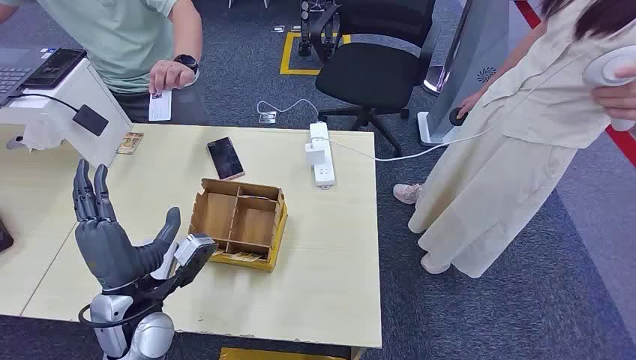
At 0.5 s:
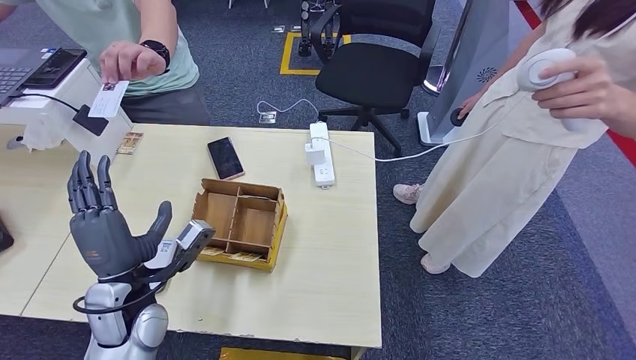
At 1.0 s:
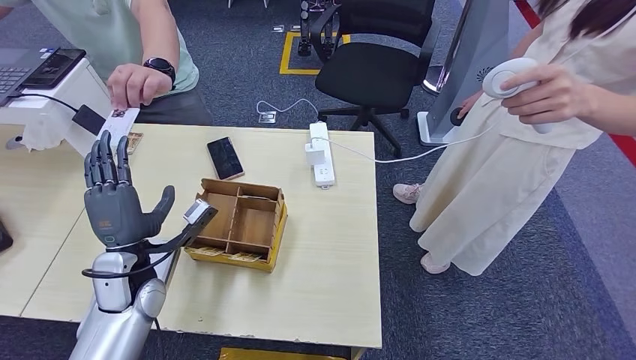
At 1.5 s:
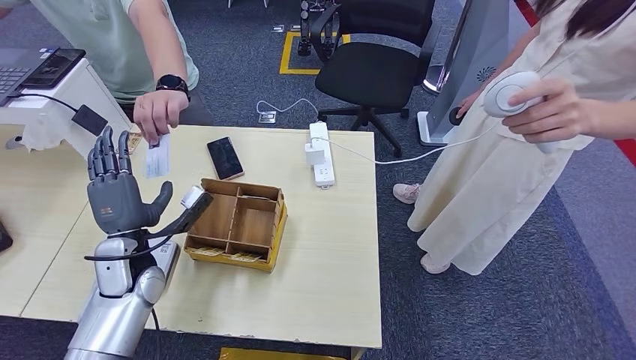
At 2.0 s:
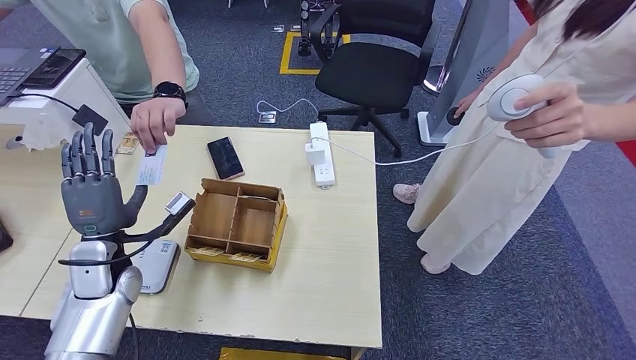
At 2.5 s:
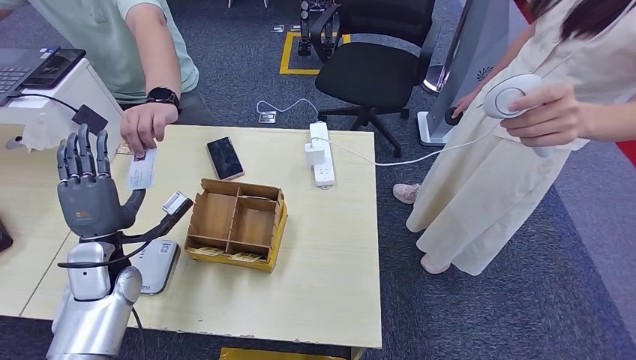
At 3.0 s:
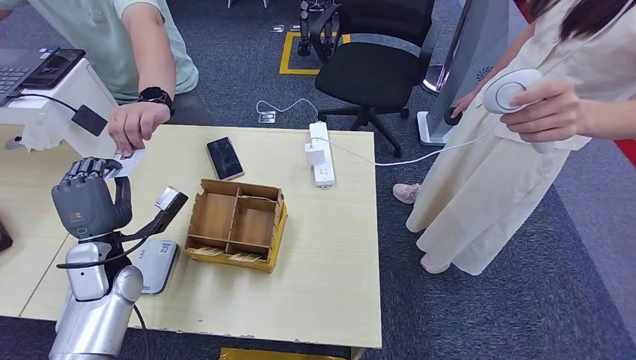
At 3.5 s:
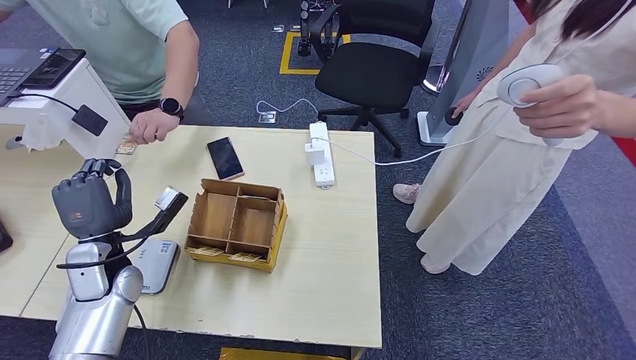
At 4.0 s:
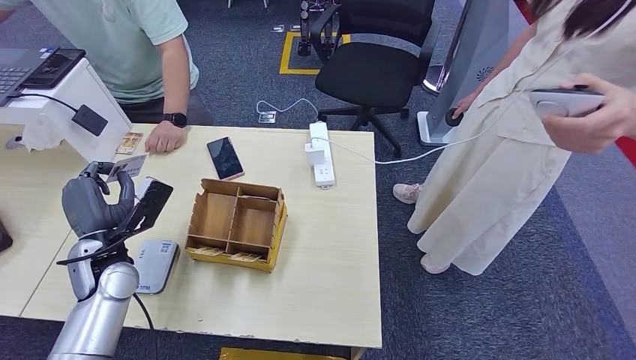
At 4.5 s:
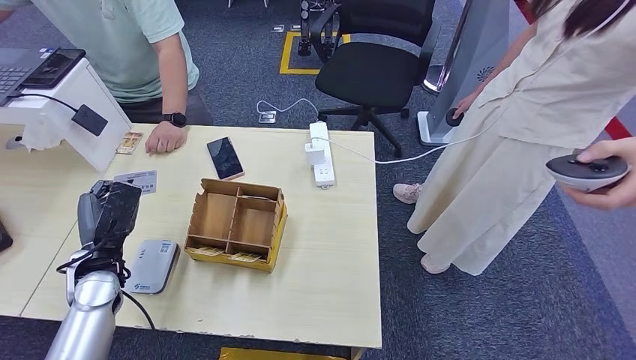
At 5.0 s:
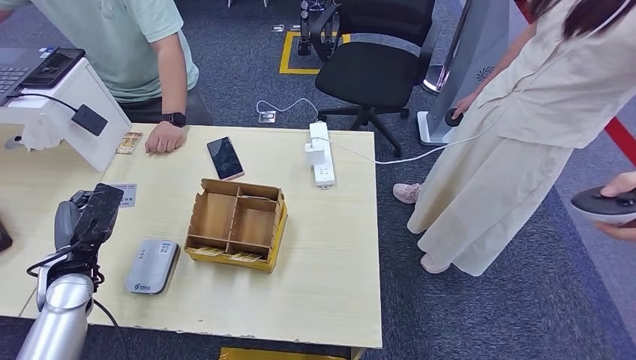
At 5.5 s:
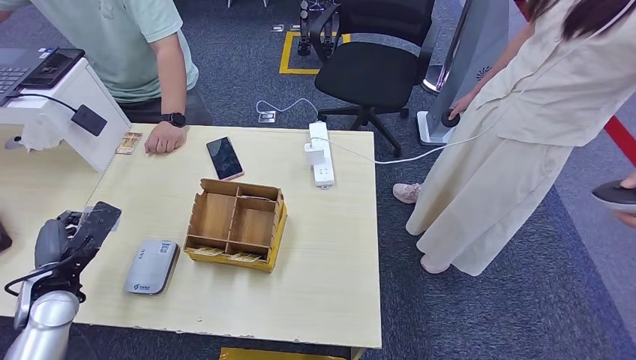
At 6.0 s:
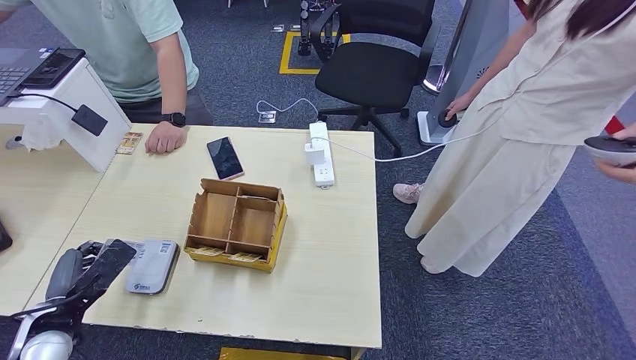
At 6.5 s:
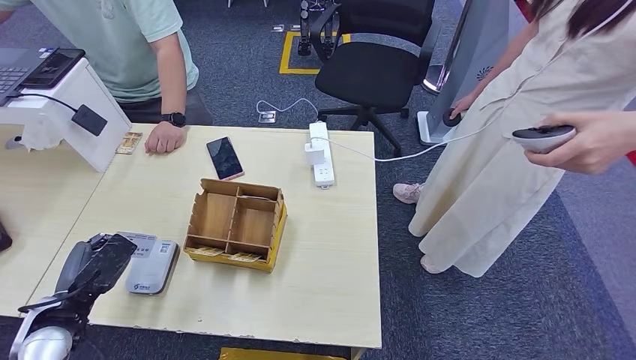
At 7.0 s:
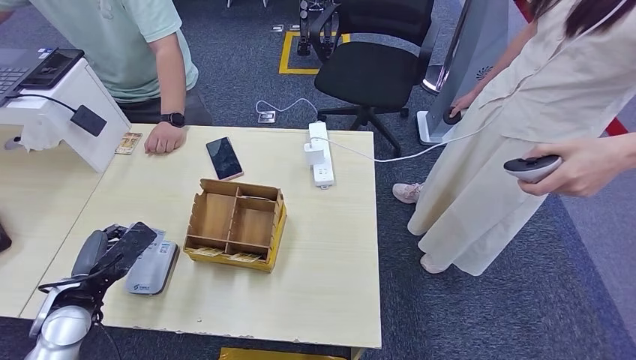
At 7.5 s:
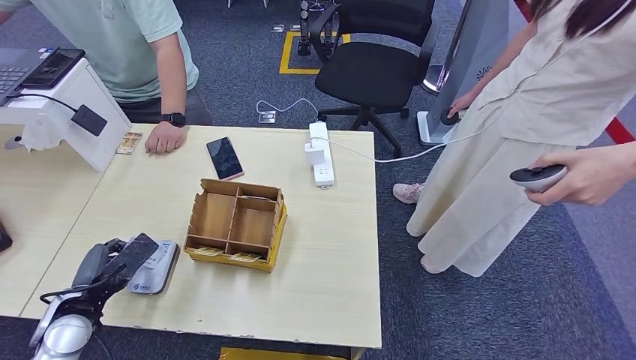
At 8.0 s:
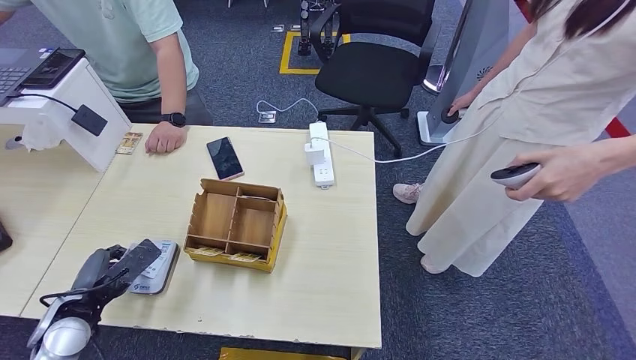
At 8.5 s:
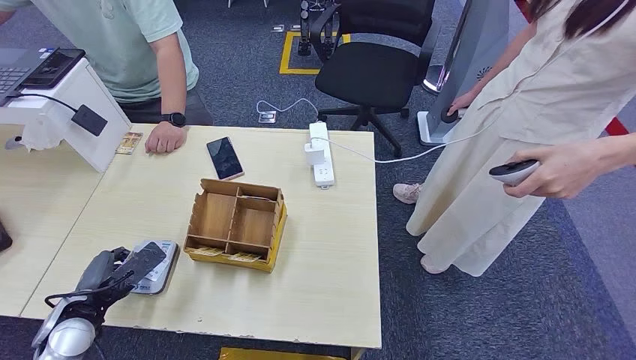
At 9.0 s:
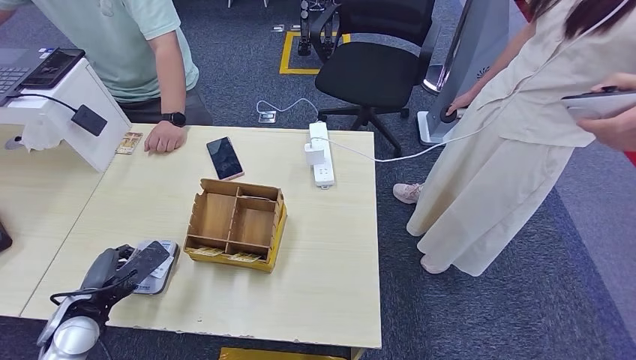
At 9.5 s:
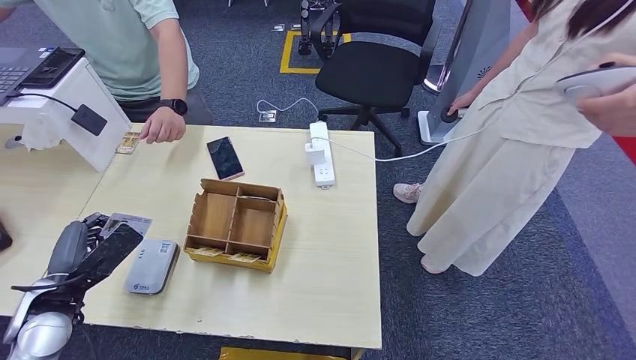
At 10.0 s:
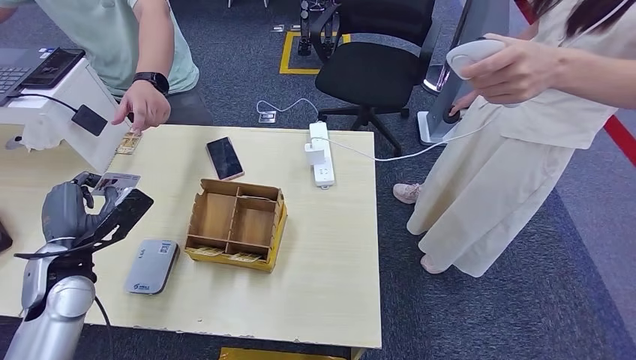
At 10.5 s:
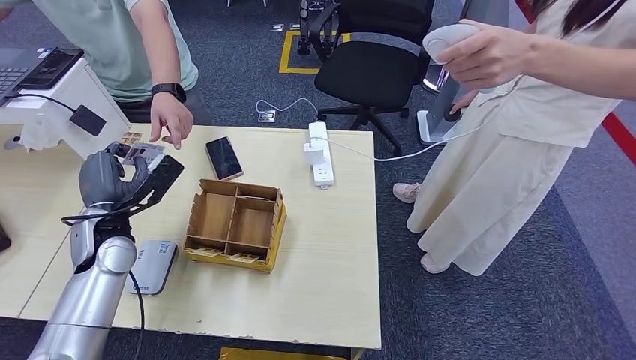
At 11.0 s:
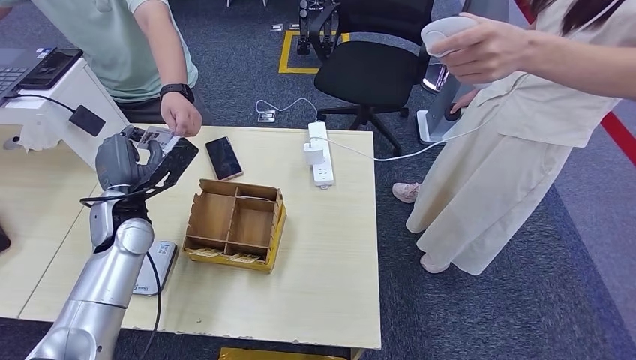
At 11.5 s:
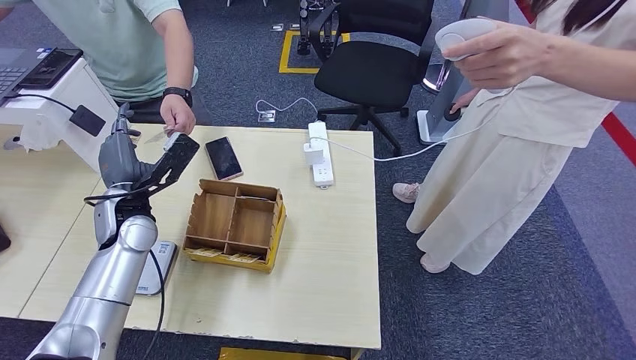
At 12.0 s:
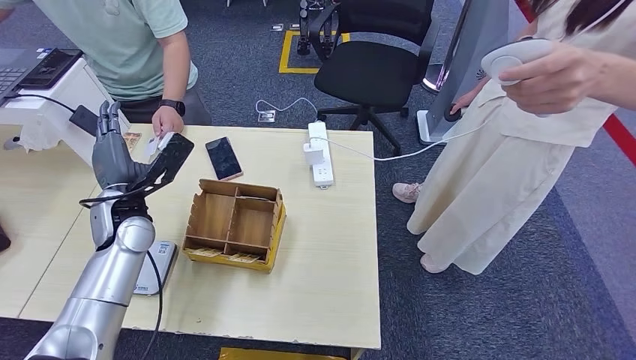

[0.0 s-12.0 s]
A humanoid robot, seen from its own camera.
Step, 0.0 to 3.5 s: Take the ID card from the person's hand.
Step, 4.0 to 8.0 s: Place the ID card on the card reader.
Step, 8.5 to 11.0 s: Hand the ID card to the person.
4.0 to 6.0 s: The left hand shifts some 10 cm backward and to the left.
6.0 to 8.0 s: The hands make only small movements.
8.0 to 10.0 s: The left hand travels upward by approximately 10 cm.

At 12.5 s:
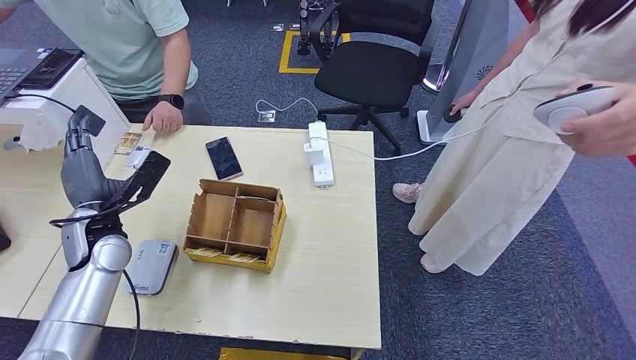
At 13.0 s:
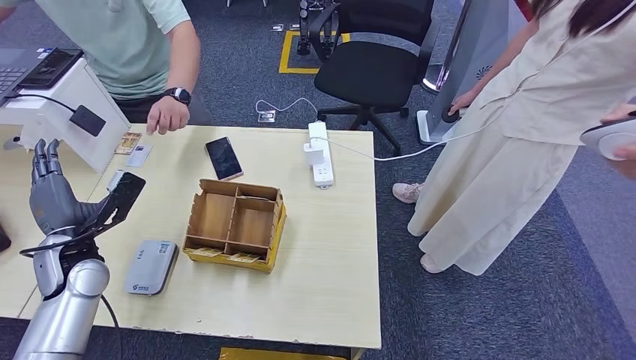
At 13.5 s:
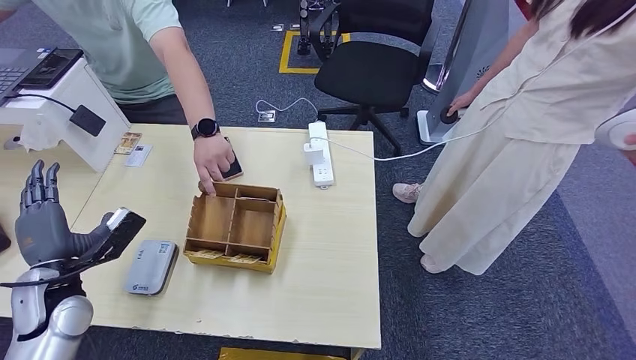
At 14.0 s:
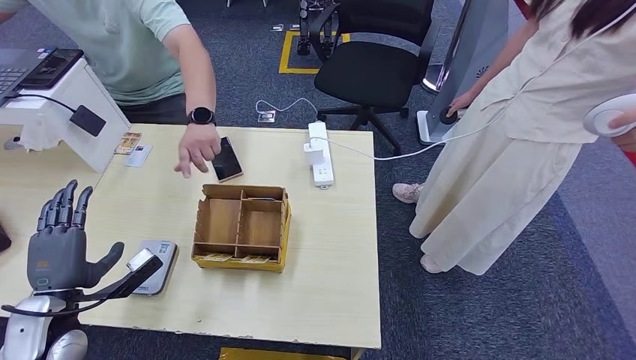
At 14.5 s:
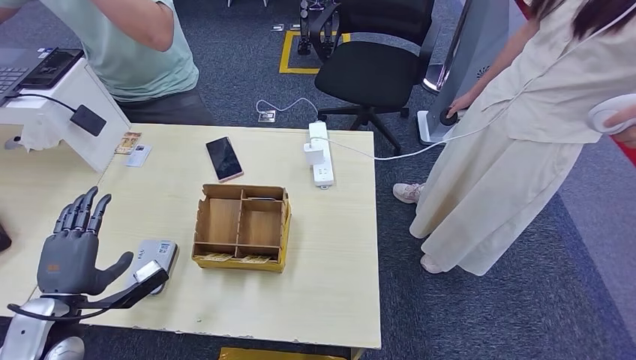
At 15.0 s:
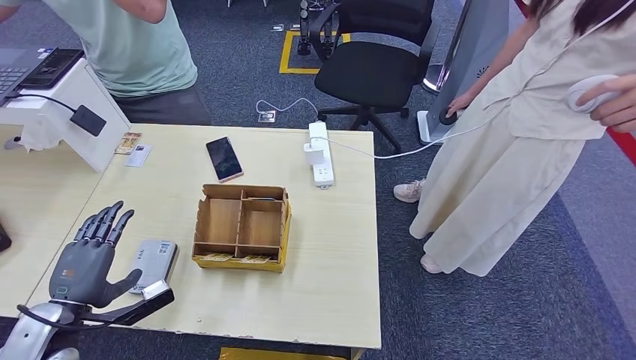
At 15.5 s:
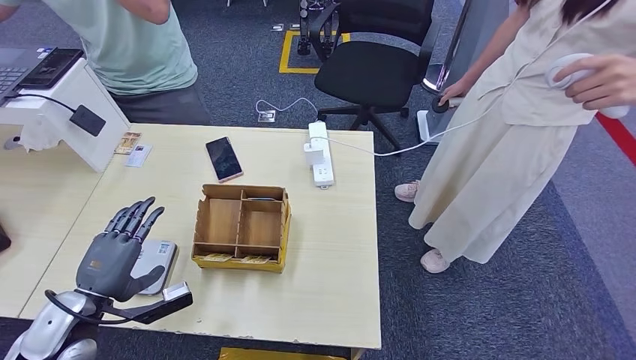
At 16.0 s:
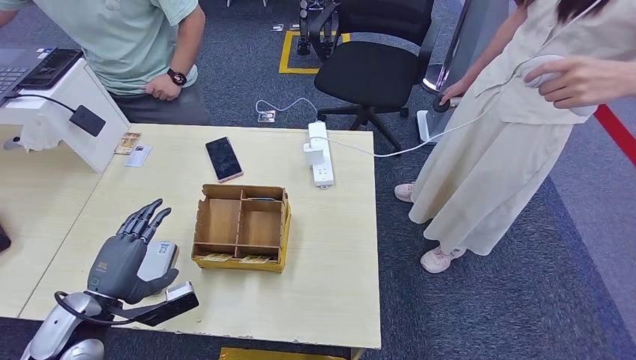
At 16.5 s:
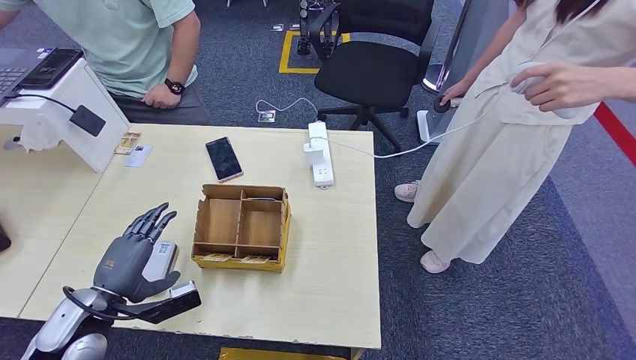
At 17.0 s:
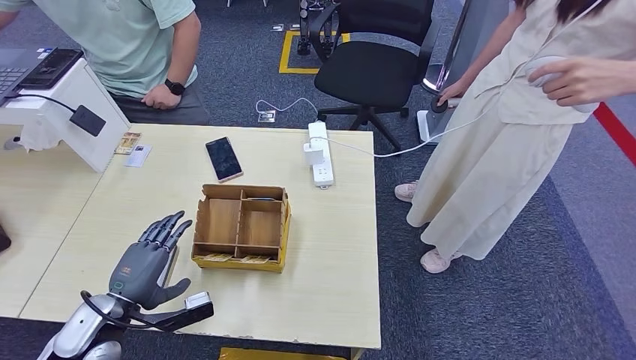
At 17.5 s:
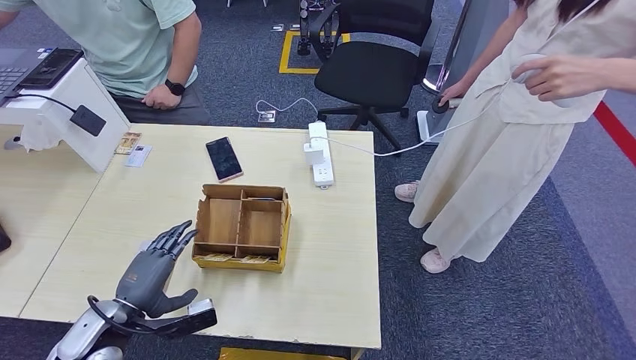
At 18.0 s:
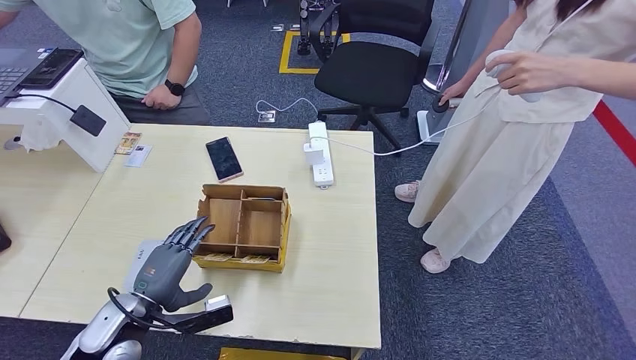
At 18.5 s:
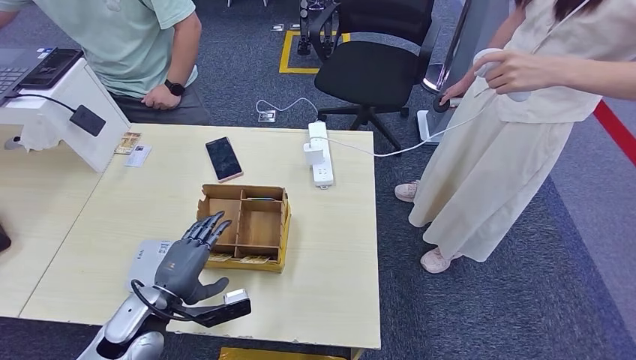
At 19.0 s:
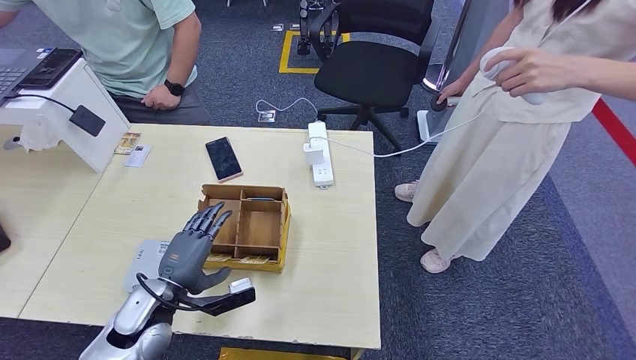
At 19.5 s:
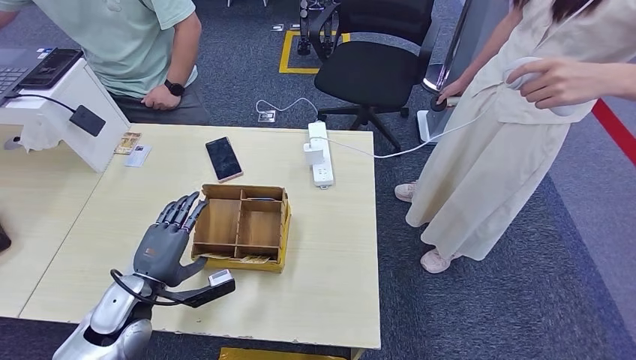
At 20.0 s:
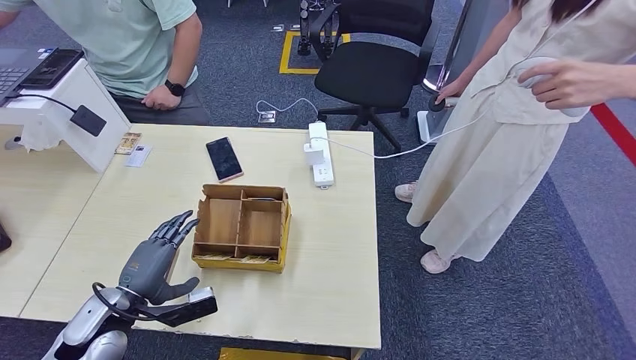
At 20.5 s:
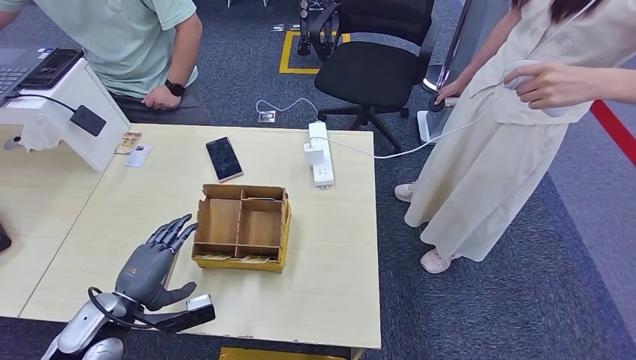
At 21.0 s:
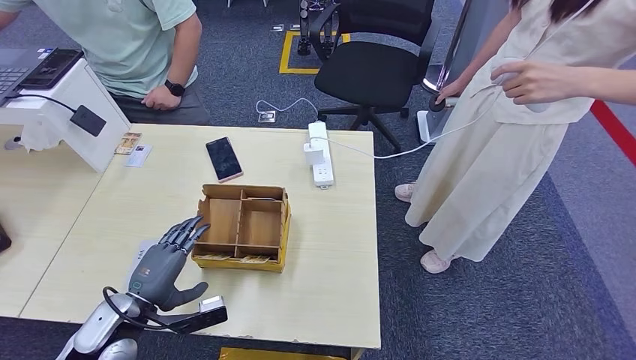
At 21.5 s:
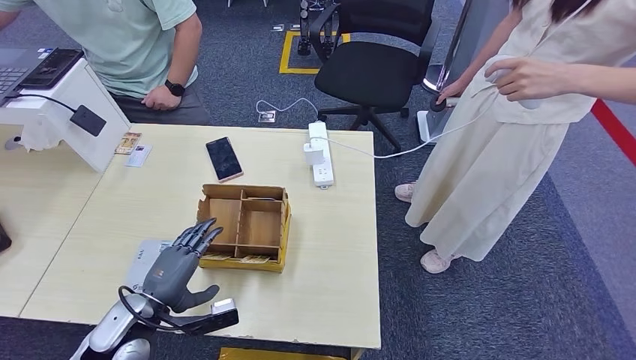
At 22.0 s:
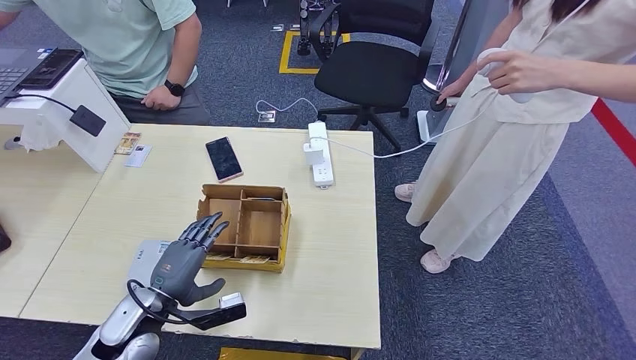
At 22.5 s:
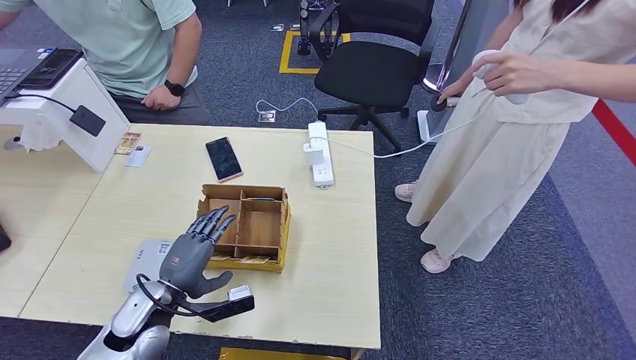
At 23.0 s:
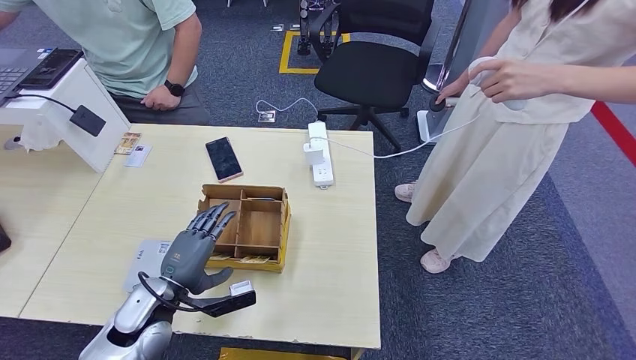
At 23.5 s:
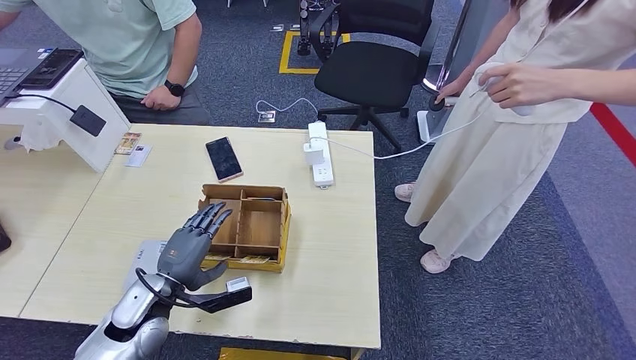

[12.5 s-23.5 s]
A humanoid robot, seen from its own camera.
12.5 to 14.5 s: The left hand moves backward, approximately 15 cm.
16.0 to 18.0 s: The left hand ends up approximately 5 cm from where it was.
18.0 to 23.5 s: The hands make only small movements.
